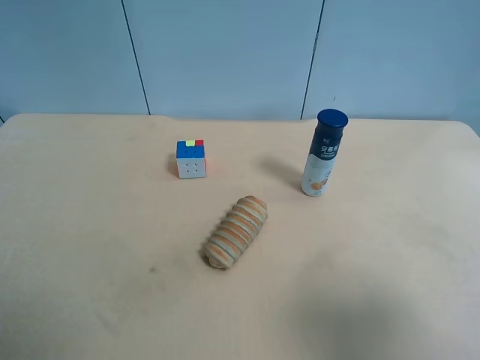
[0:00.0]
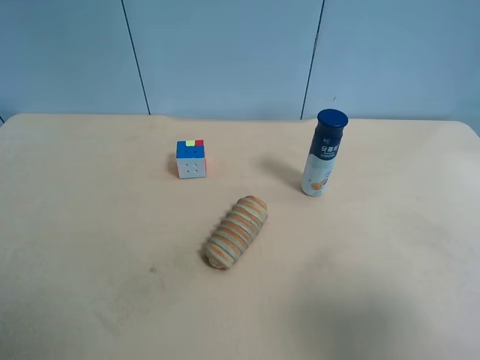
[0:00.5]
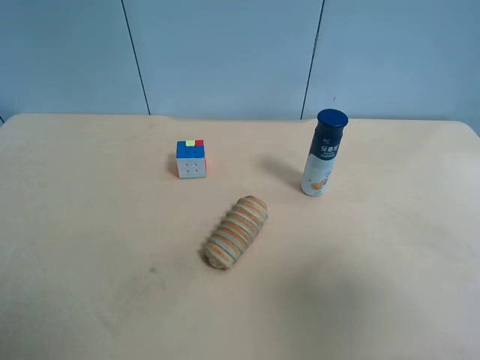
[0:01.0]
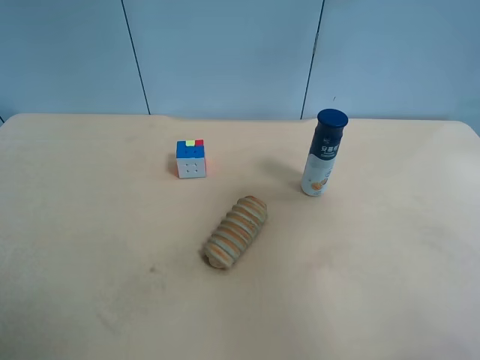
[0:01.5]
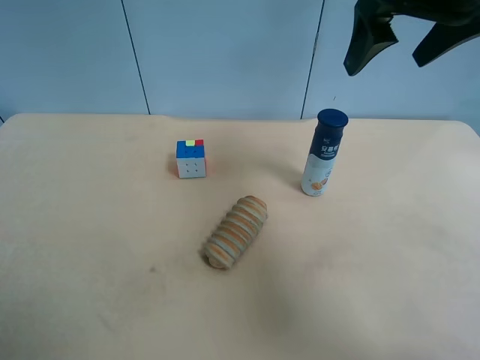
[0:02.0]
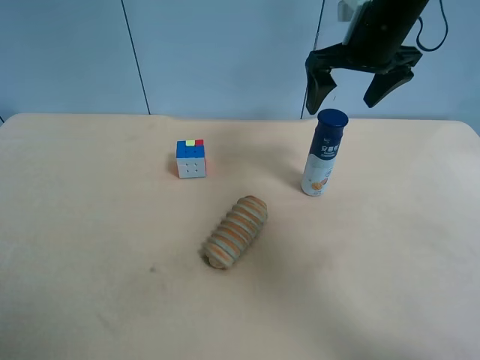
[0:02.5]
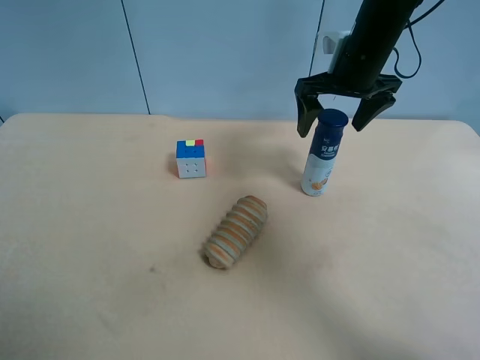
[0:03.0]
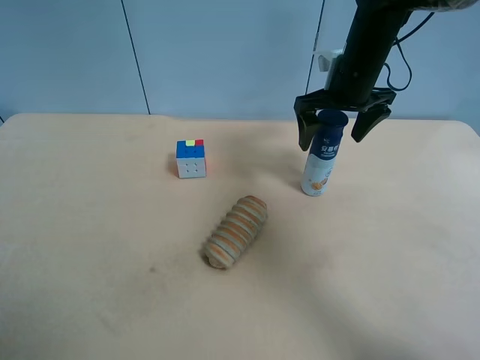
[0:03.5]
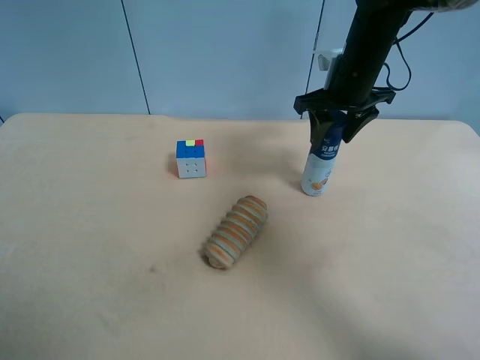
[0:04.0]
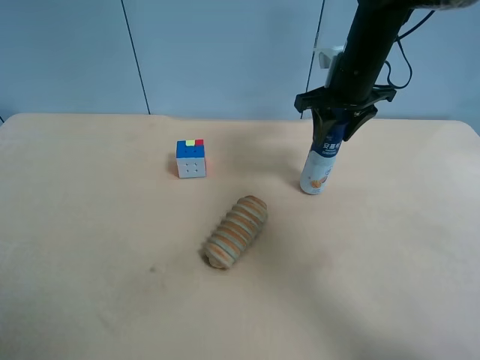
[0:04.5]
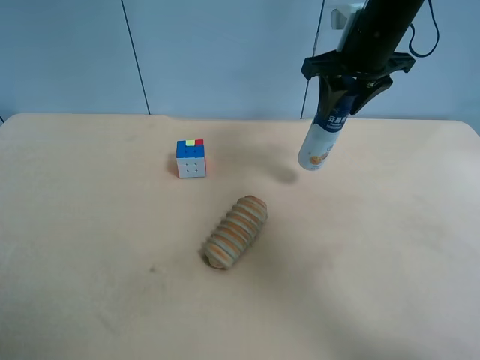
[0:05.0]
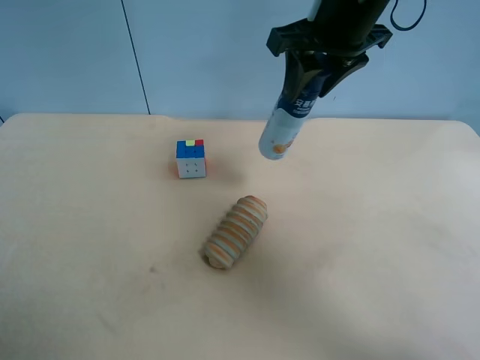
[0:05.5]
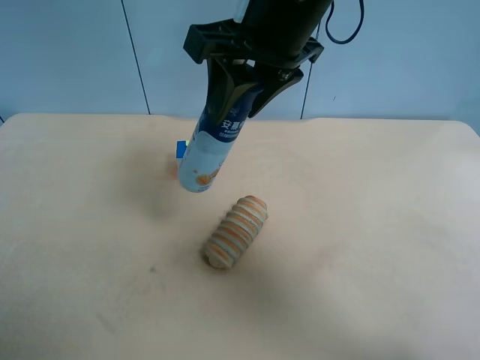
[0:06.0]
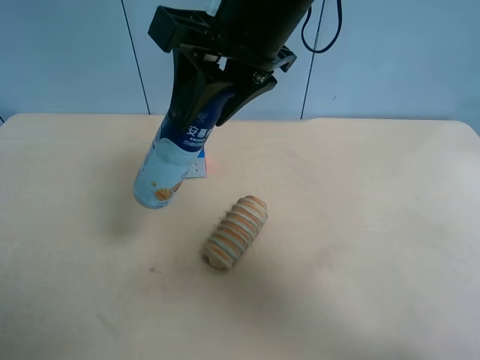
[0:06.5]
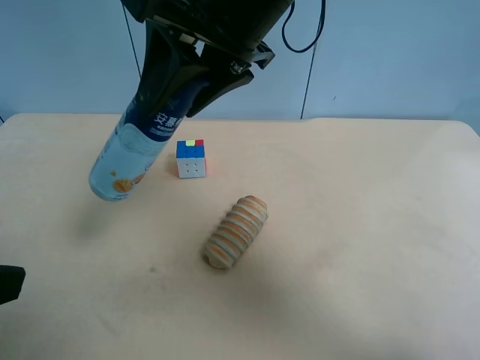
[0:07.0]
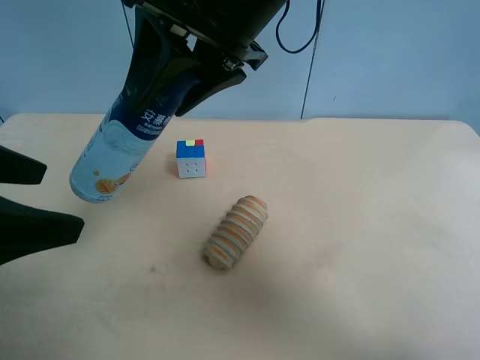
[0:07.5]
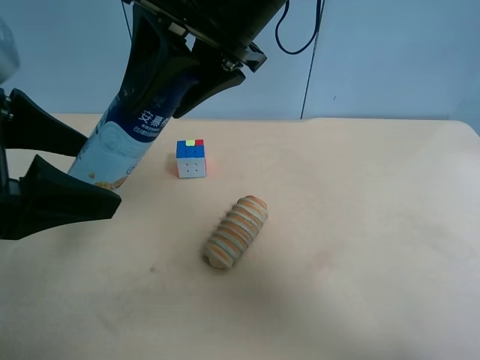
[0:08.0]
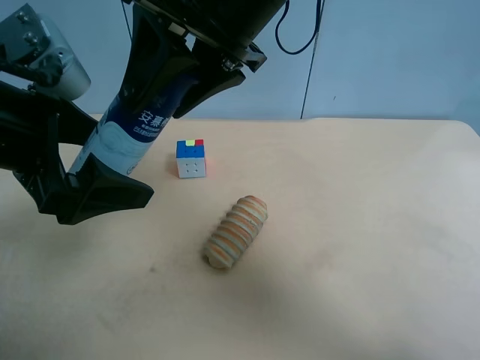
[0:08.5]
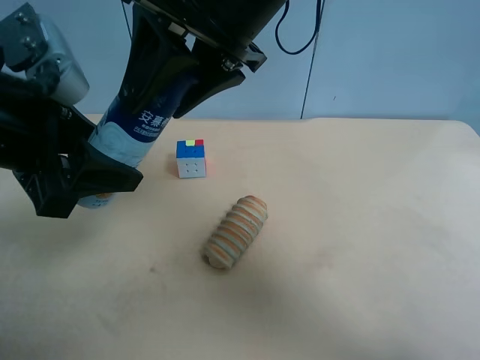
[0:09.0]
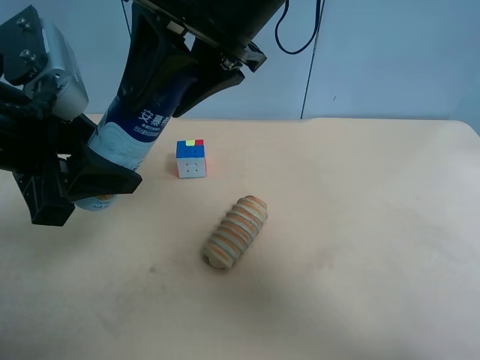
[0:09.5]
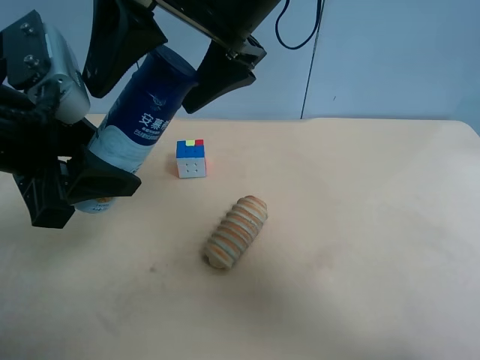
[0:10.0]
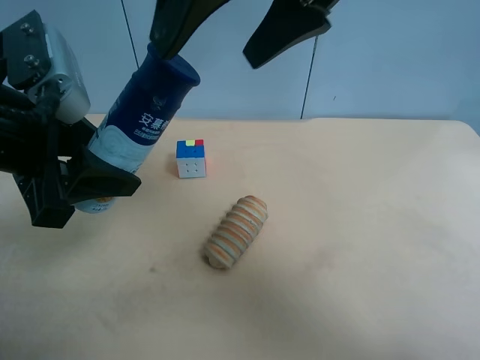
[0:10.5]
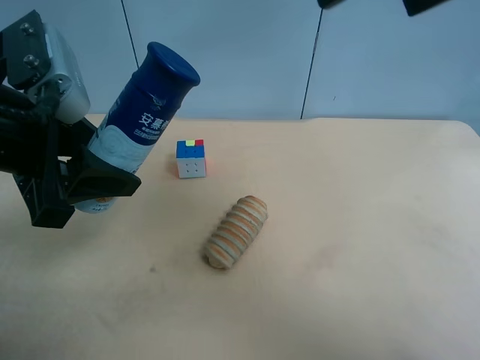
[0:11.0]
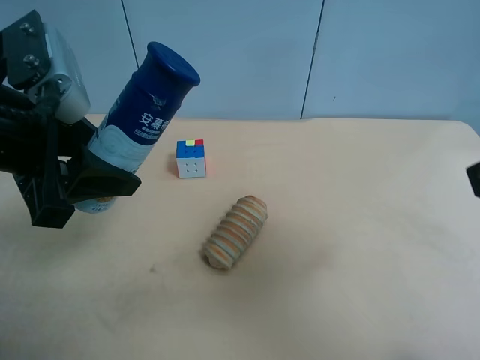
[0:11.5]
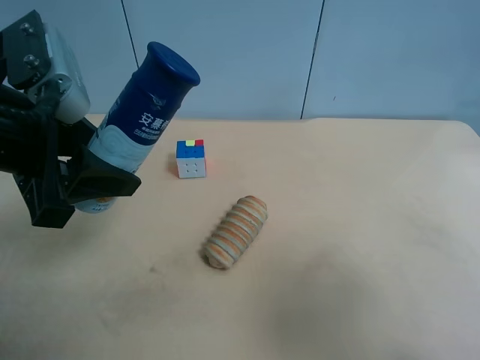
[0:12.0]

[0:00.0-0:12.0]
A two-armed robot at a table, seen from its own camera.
Task of the whole recording: use the right gripper to pick up the item and transfer it from the right gripper to the left gripper.
0:00.0 to 0:02.0: The right gripper heads forward, covering about 30 cm.
0:02.0 to 0:04.0: The right gripper goes some 15 cm downward and forward, and closes up.
0:04.0 to 0:06.0: The right gripper heads backward, to the left and upward, covering approximately 20 cm.
0:06.0 to 0:08.0: The left gripper travels forward and to the right by some 20 cm.
0:08.0 to 0:10.0: The right gripper opens its fingers. Meanwhile the left gripper closes.
0:10.0 to 0:12.0: The right gripper shifts some 35 cm to the right and backward.

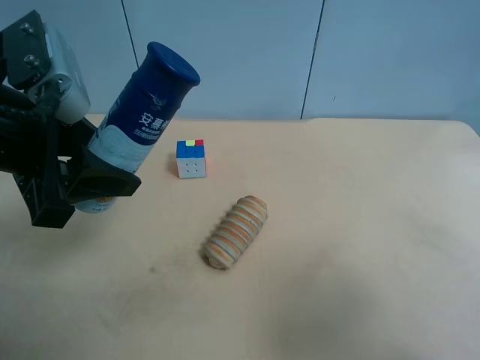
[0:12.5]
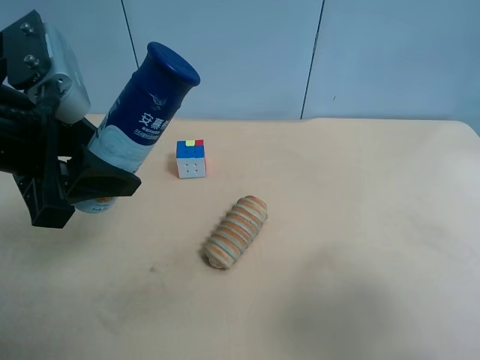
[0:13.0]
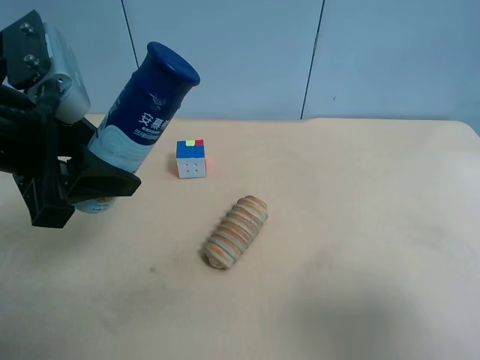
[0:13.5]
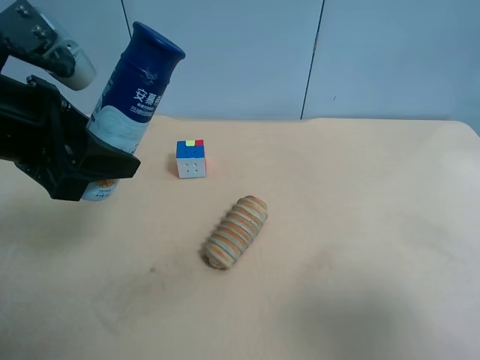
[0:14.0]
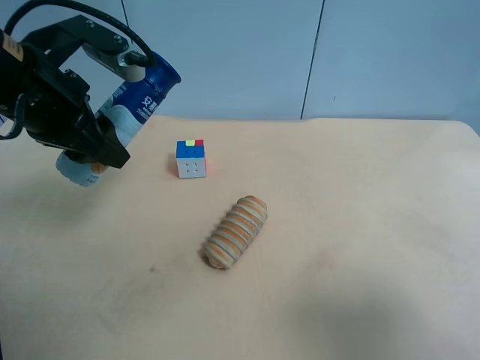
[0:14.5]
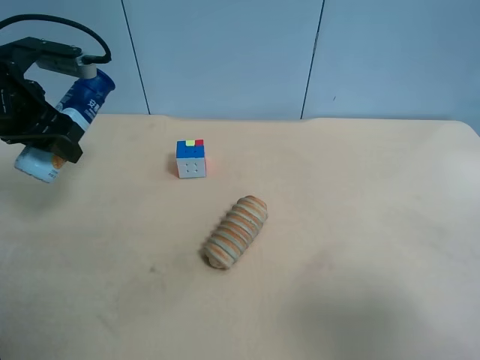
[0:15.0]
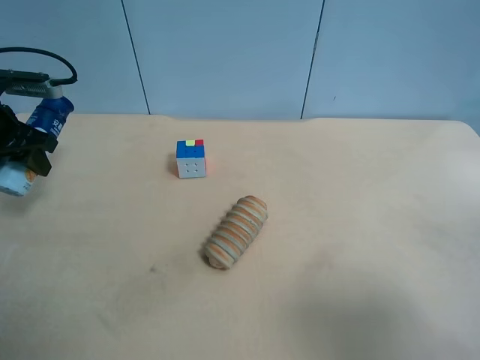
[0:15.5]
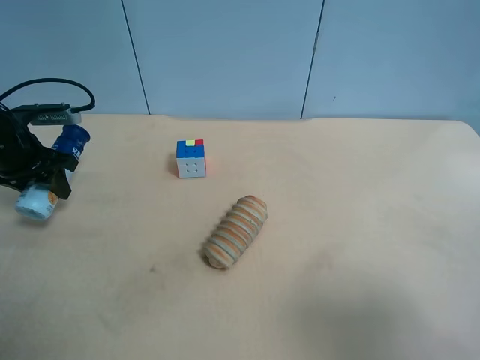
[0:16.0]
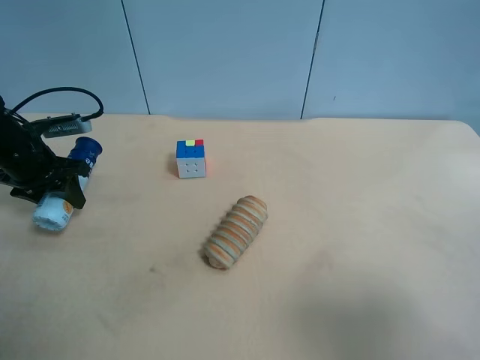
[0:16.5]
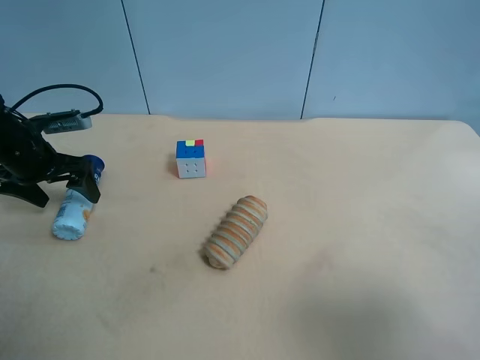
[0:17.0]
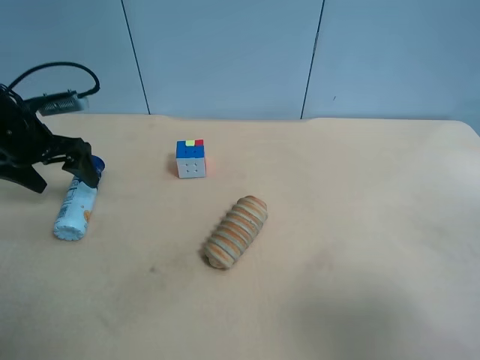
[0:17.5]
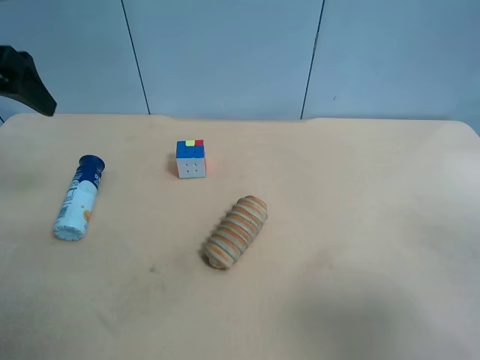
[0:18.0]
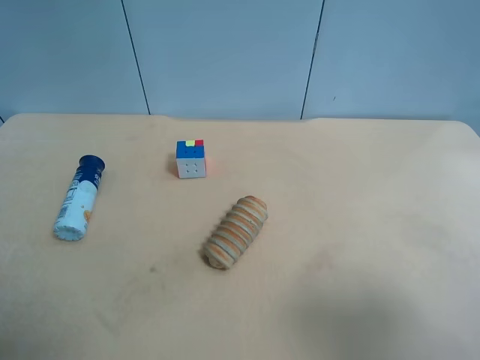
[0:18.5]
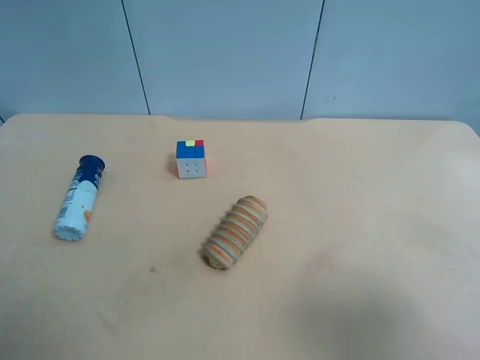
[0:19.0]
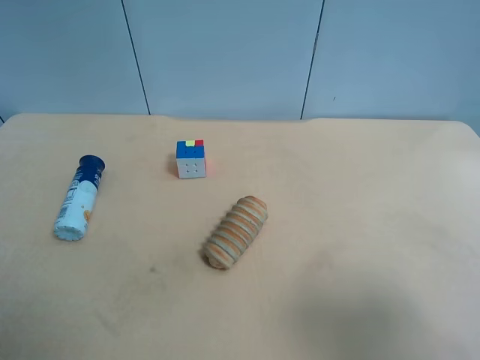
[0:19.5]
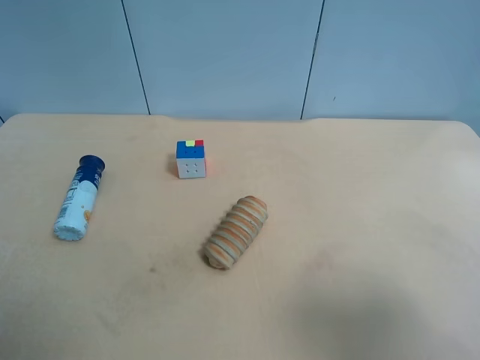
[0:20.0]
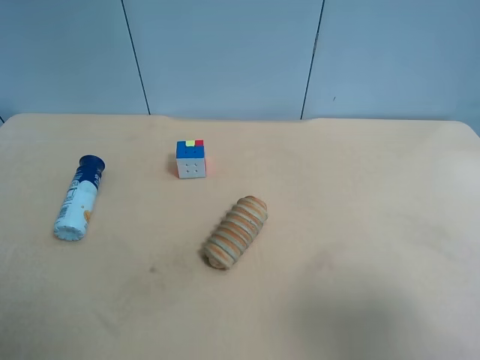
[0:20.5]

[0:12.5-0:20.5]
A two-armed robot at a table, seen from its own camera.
Task of the whole recording: use the right gripper to pick up the item and transfer it from the right gripper to the left gripper.
0:12.5 to 0:14.5: The left gripper moves forward, some 5 cm.
0:14.5 to 0:16.5: The left gripper goes about 20 cm downward, to the left and forward.
0:16.5 to 0:18.5: The left gripper goes approximately 30 cm upward and backward, and opens up.
